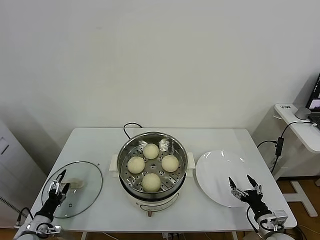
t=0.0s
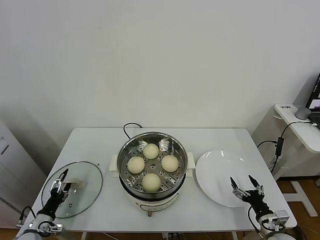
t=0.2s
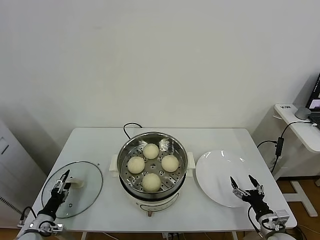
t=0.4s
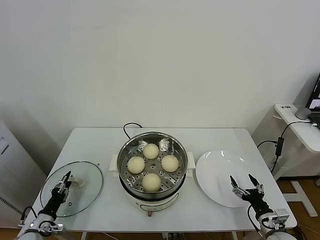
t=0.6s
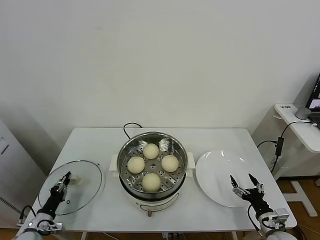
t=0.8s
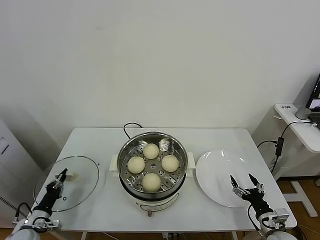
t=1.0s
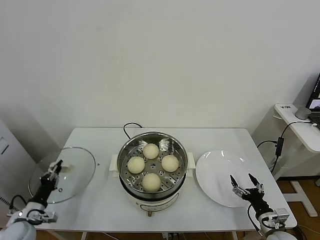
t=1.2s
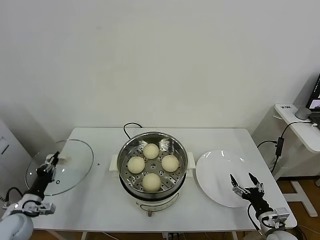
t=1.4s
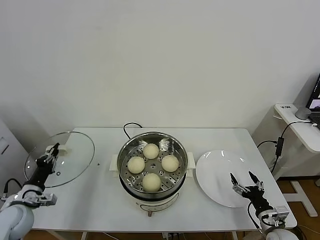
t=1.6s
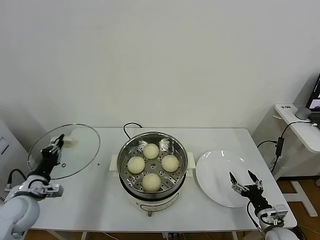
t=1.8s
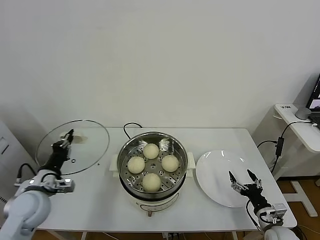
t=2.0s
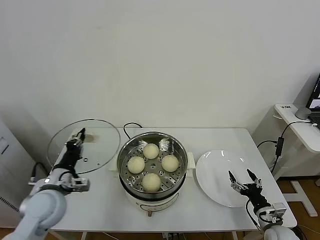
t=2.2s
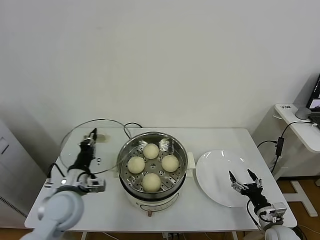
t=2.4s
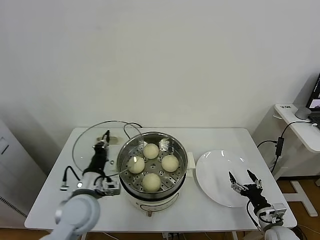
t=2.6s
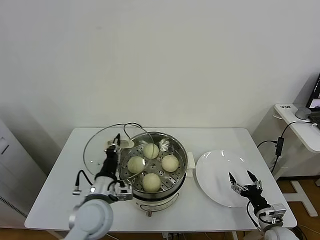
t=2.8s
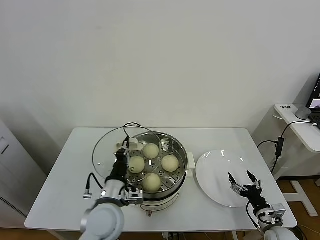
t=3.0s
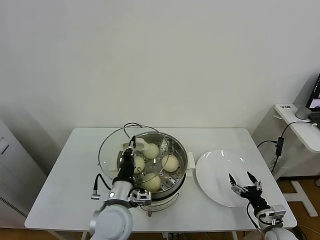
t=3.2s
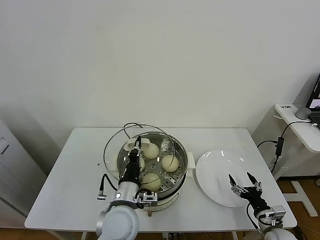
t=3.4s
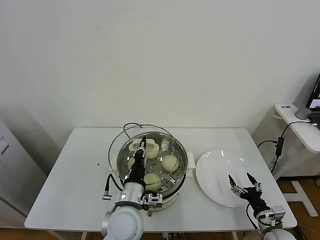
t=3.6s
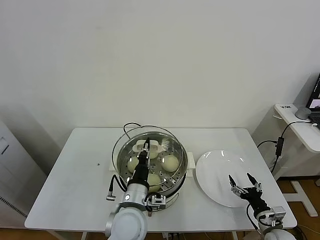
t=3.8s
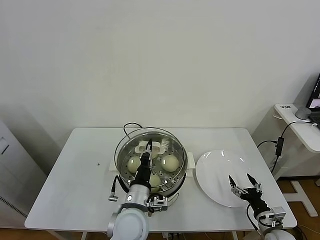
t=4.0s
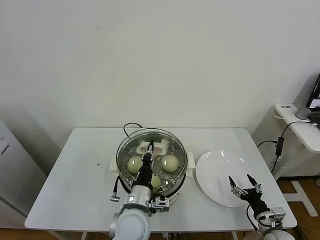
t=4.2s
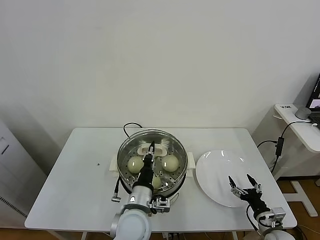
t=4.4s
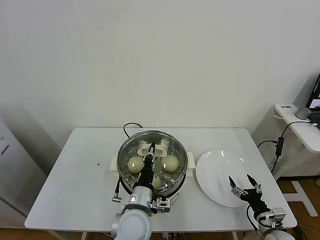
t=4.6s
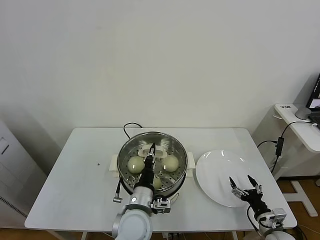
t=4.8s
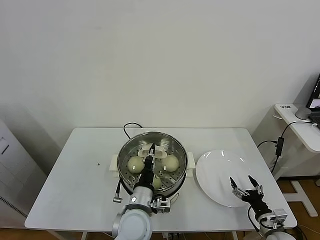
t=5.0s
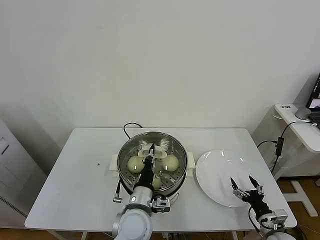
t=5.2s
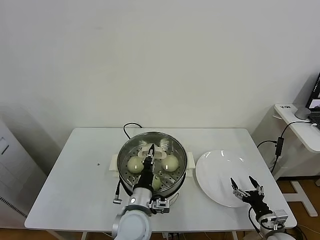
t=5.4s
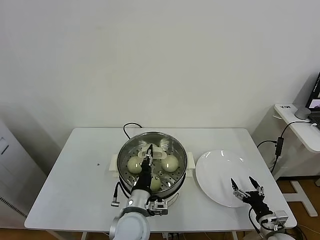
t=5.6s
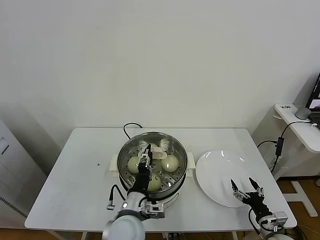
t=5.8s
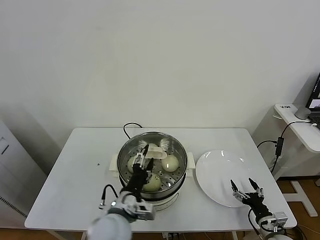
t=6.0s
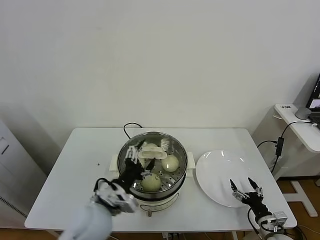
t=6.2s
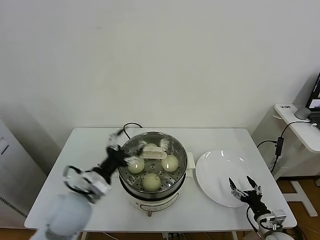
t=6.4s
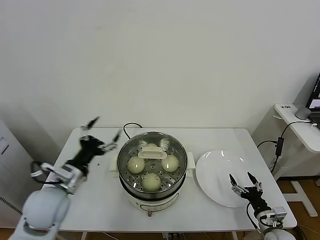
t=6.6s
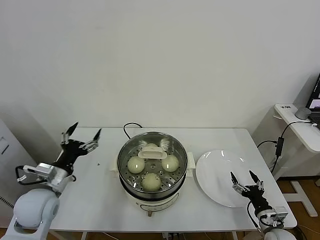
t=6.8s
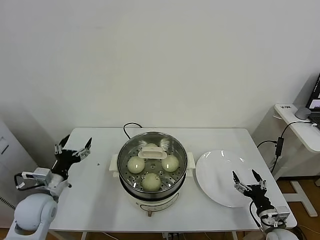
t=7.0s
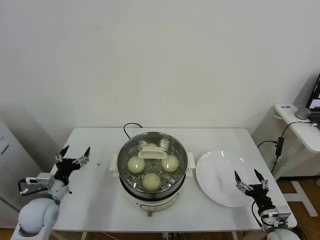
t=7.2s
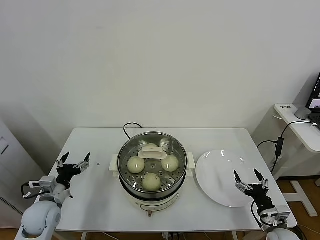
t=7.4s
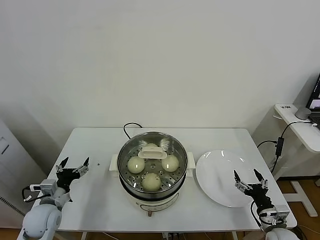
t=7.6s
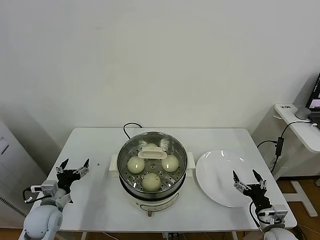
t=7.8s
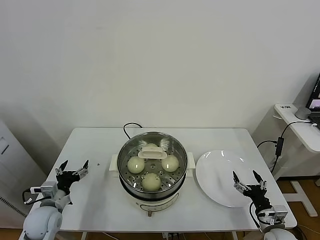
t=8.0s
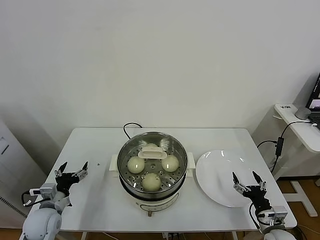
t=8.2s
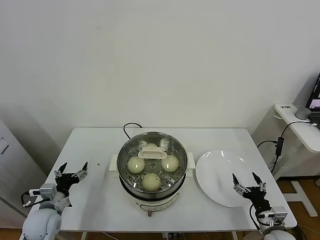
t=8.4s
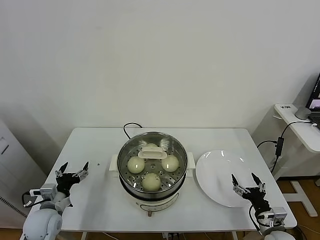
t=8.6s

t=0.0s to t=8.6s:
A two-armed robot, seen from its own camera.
Task of the whole recording: take steamed baozi put them in steamer.
Step, t=1.2s to t=6.2s: Place the pot lid on the steamer with left gripper.
t=0.0s to t=1.4s: The left gripper goes some 10 cm upward, and closes.
t=1.4s to t=2.8s: The left gripper travels to the right and upward by some 30 cm.
t=2.8s to t=4.4s: The left gripper travels to the right by about 10 cm.
t=4.4s to t=5.8s: The left gripper opens its fingers.
t=5.8s to t=7.2s: The left gripper heads to the left, covering some 25 cm, and opens its fingers.
t=7.2s to t=8.6s: The left gripper is displaced downward by roughly 5 cm.
